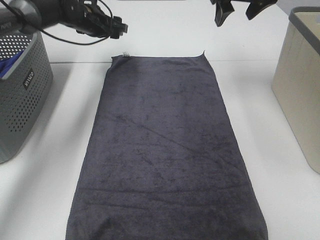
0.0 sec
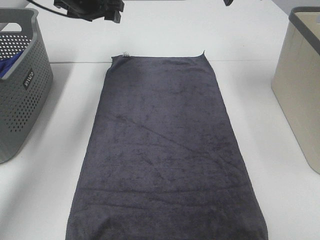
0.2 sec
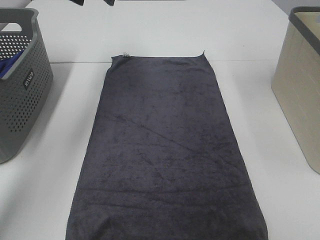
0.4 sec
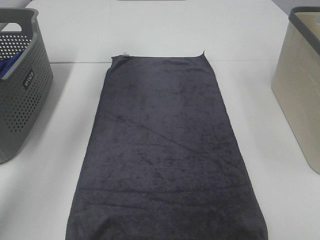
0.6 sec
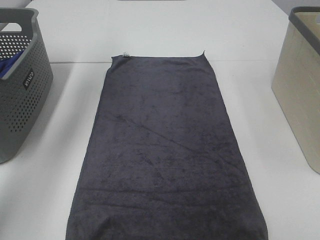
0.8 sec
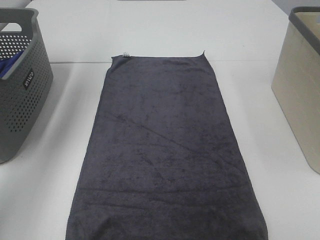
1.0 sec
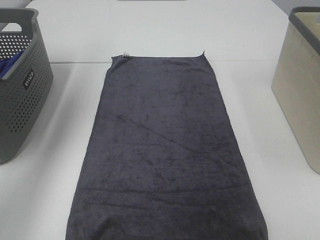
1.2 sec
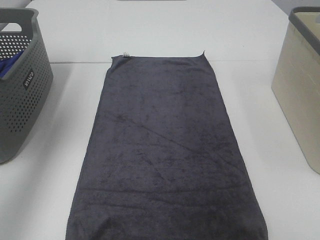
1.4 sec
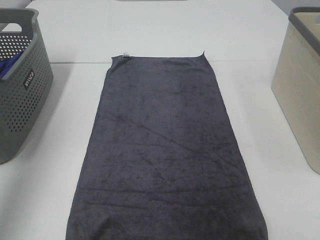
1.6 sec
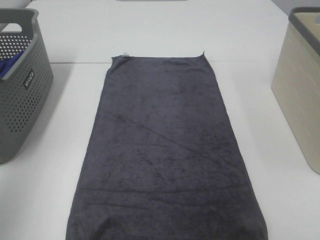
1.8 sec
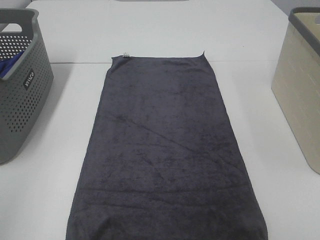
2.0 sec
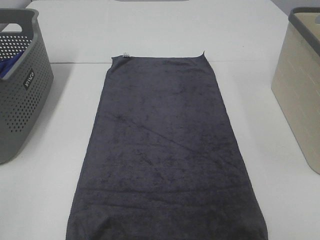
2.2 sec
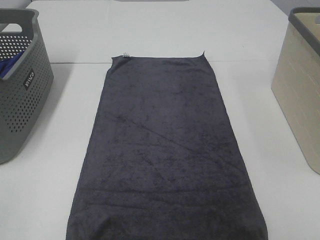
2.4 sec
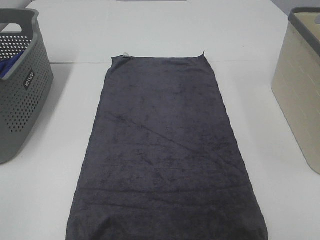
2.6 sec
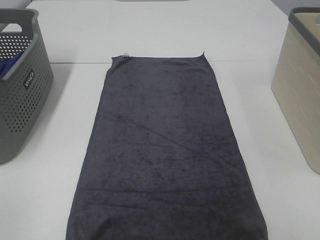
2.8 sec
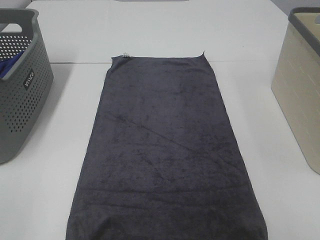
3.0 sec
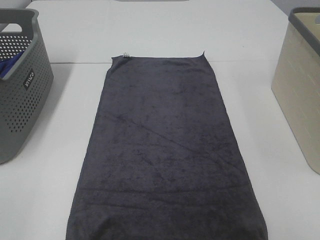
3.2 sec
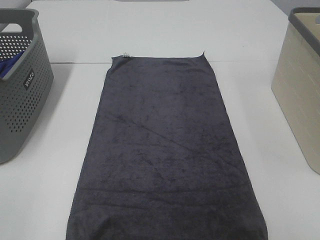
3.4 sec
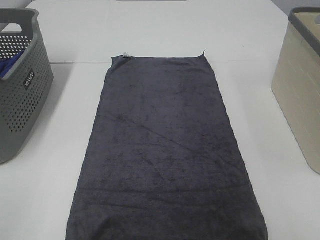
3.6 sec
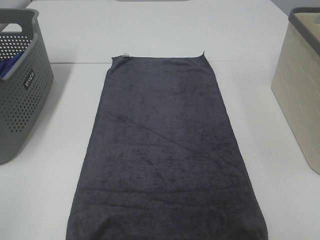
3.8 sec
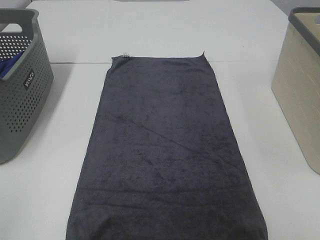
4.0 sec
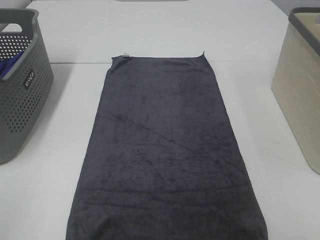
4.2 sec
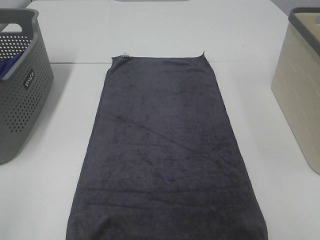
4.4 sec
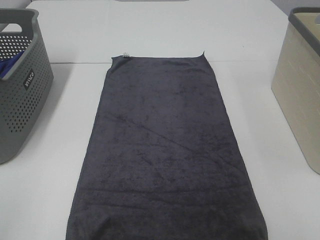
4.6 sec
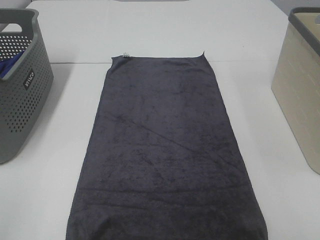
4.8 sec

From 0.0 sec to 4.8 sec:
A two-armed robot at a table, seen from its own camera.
Task of the whole recording: Remove the towel and place it.
From 0.0 sec to 1.6 sec: The right gripper moves backward, some 40 cm; the left gripper is displaced backward and upward by about 40 cm.
From 1.6 sec to 3.2 sec: The left gripper is displaced backward and downward by about 25 cm.

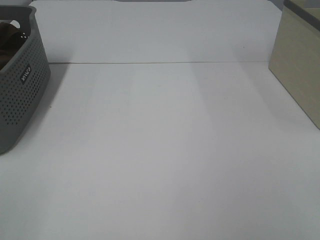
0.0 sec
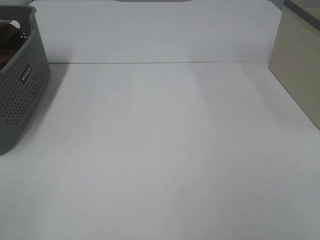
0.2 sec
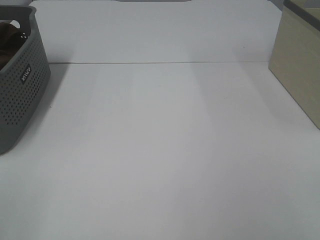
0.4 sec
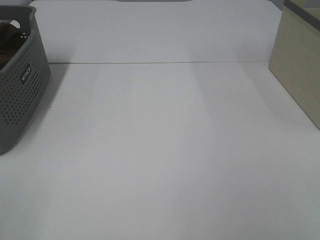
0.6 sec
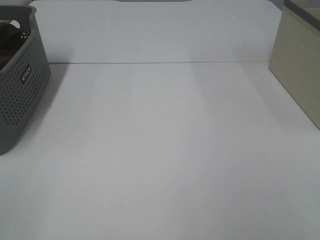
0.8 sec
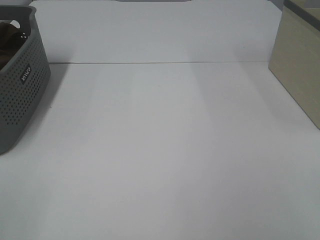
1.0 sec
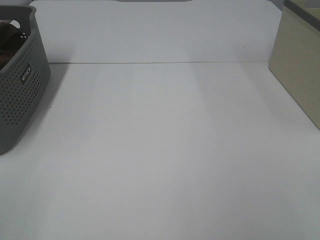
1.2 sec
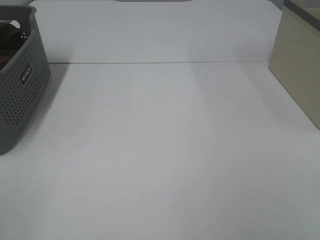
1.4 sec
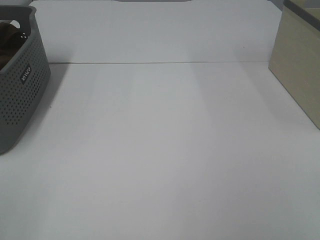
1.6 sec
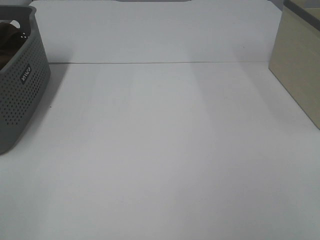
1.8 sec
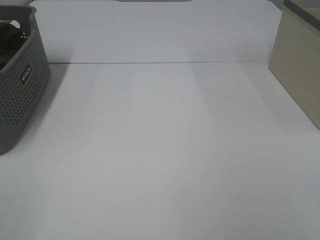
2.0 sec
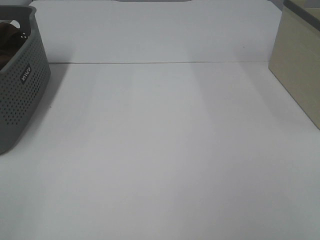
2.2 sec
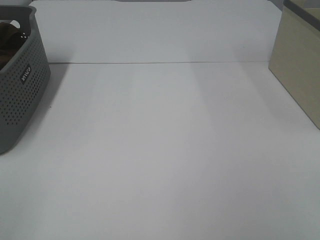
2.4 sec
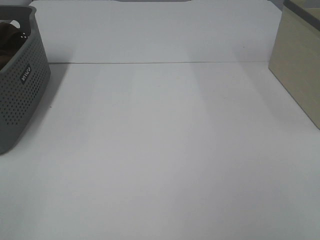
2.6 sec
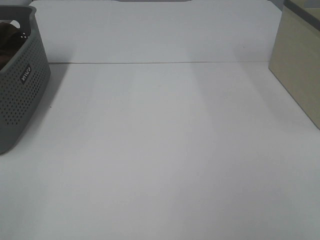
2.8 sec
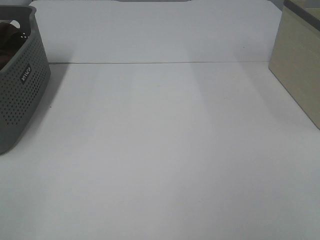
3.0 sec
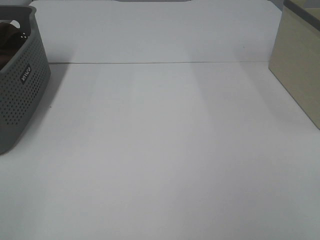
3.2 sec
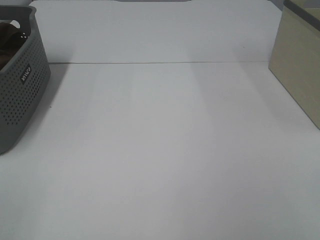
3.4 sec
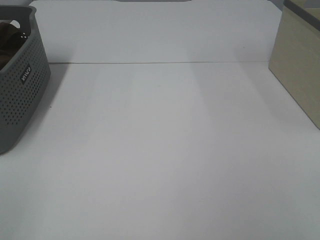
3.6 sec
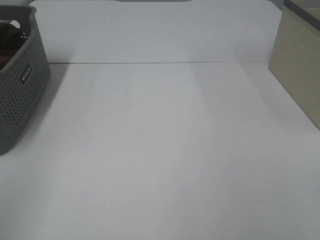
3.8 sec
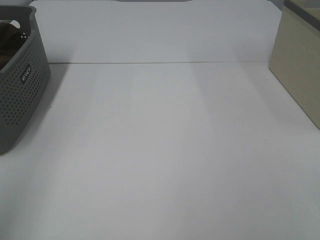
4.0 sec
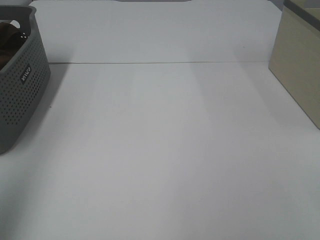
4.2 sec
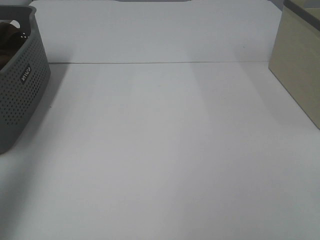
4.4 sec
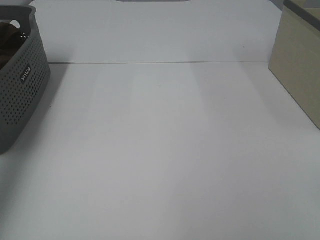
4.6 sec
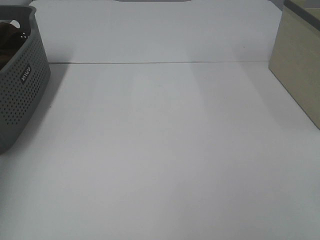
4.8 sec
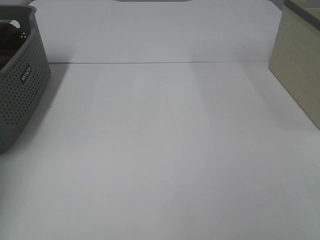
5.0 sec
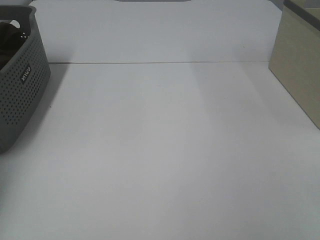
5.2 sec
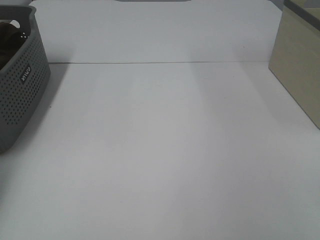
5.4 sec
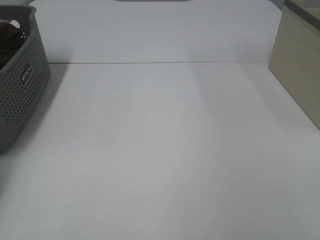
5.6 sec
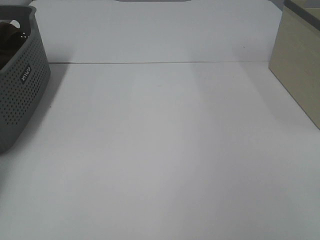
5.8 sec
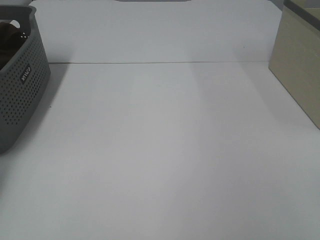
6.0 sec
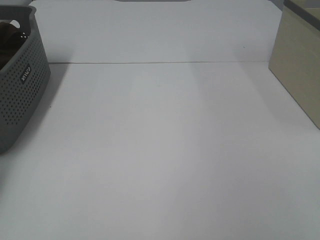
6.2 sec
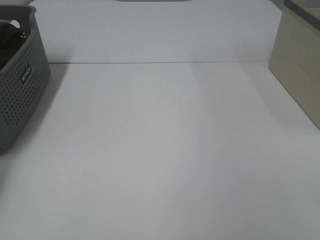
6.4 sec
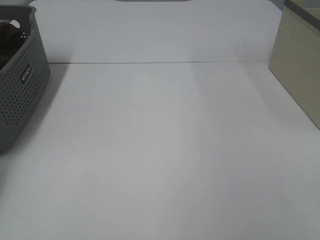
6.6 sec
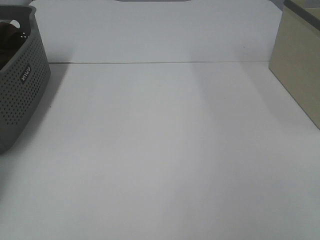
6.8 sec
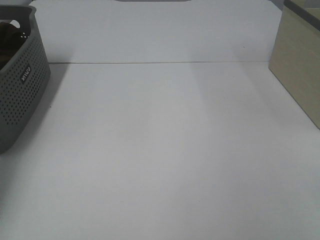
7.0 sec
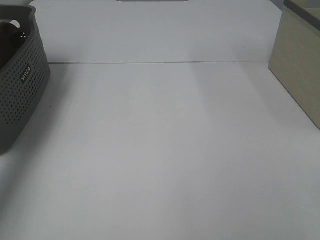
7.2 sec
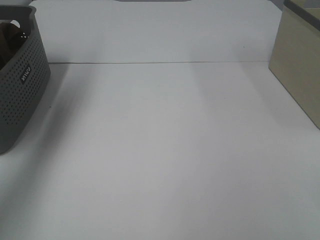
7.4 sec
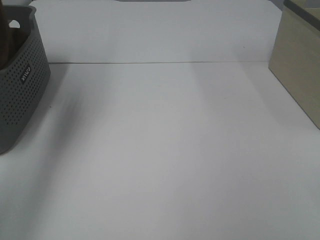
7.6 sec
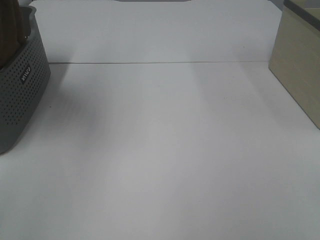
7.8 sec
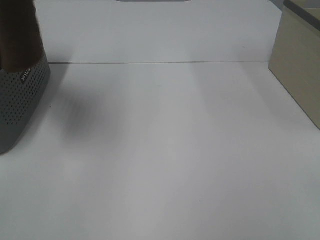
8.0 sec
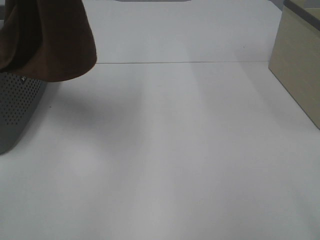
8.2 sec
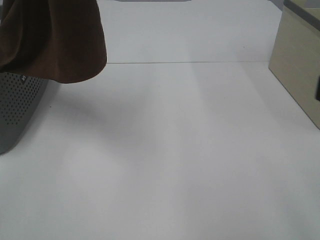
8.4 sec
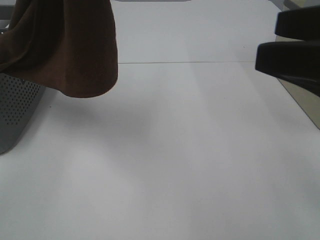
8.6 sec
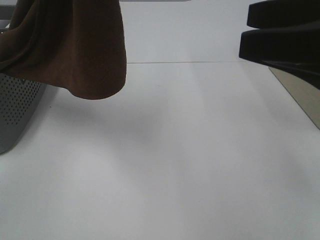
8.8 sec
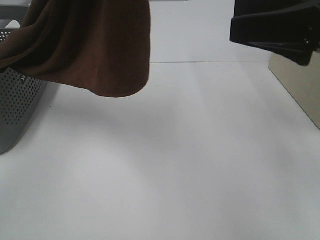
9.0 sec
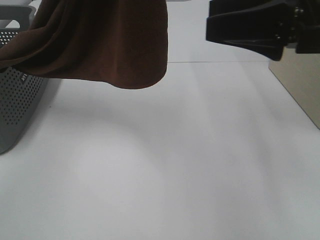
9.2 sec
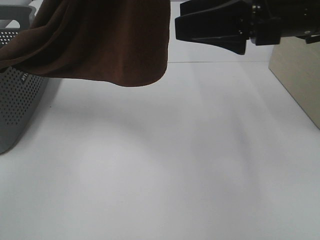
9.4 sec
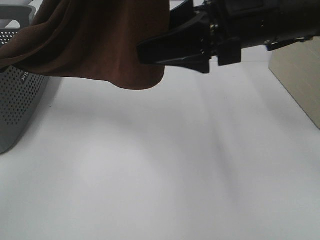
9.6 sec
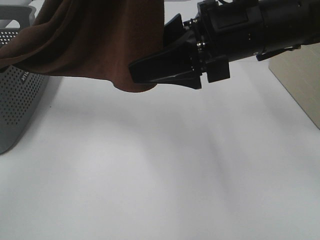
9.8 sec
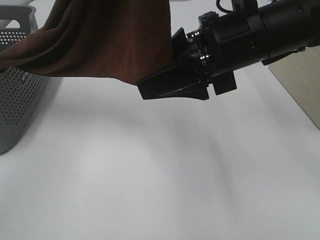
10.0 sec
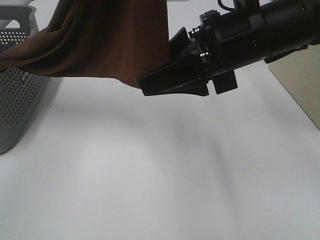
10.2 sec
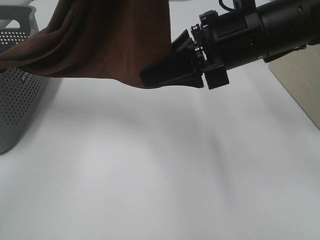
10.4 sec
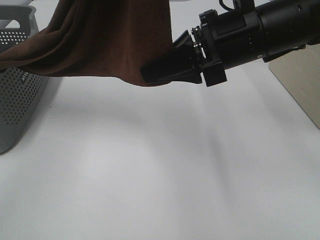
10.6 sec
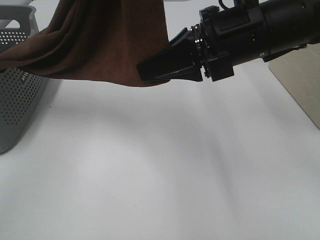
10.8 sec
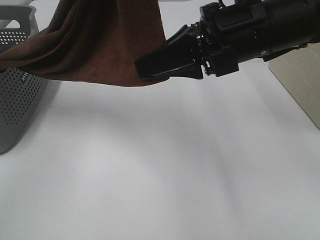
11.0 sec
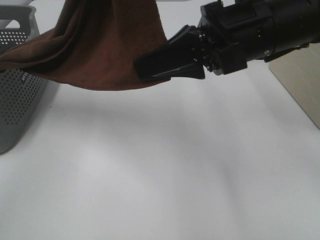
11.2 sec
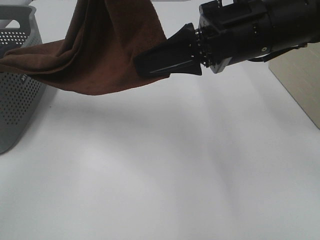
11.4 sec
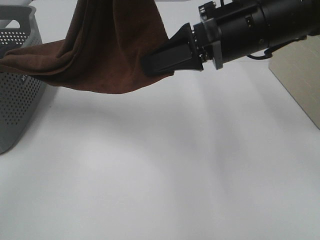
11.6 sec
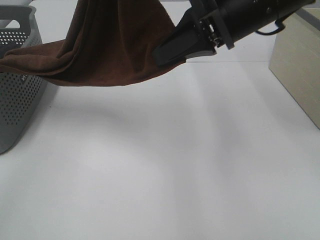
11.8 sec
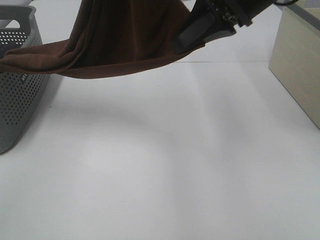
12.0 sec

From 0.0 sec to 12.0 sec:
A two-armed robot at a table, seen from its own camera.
Task of the whole recording: Remove the towel and place it.
From 0.0 sec to 3.0 sec: The two grippers keep their place.
From 3.0 sec to 4.4 sec: The left gripper is displaced forward and upward by roughly 25 cm.
From 4.4 sec to 6.0 sec: The left gripper moves forward, downward and to the left, some 35 cm, and closes up.
From 6.0 sec to 7.6 sec: The left gripper moves upward and to the right, approximately 30 cm, and closes its fingers.
From 7.6 sec to 9.0 sec: The left gripper heads to the right and backward, covering approximately 25 cm, while the right gripper is displaced forward by about 25 cm.
From 9.0 sec to 10.4 sec: The right gripper heads to the left, covering roughly 10 cm, and closes.
From 10.4 sec to 12.0 sec: The right gripper moves upward, approximately 5 cm, and closes up.

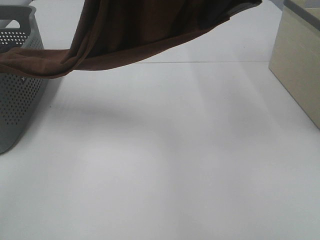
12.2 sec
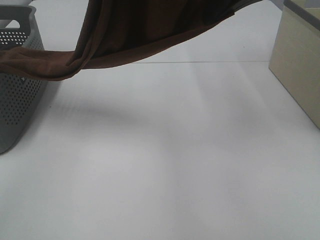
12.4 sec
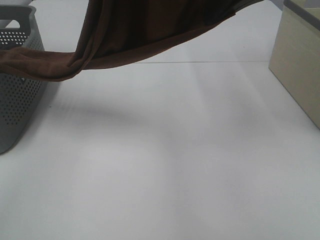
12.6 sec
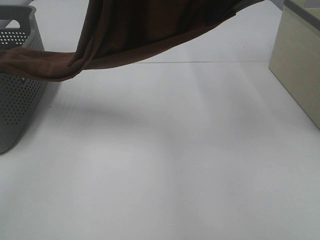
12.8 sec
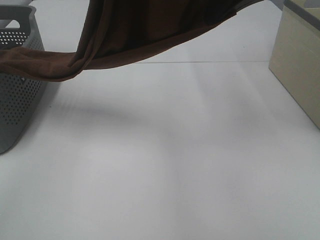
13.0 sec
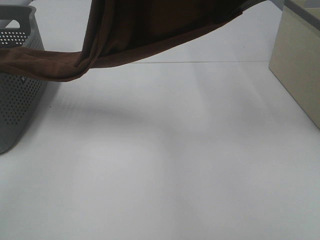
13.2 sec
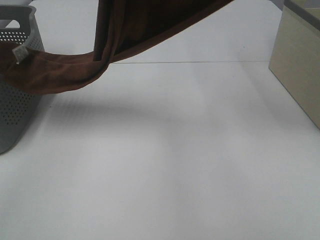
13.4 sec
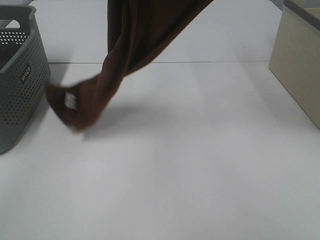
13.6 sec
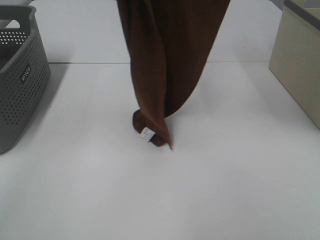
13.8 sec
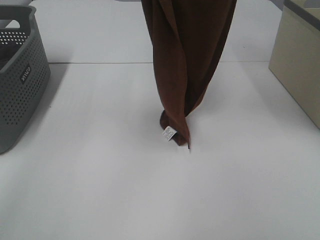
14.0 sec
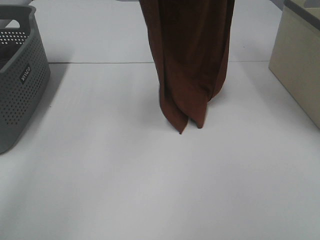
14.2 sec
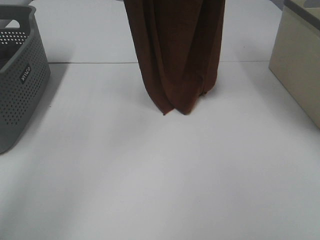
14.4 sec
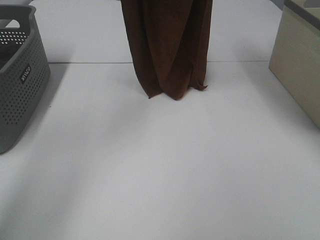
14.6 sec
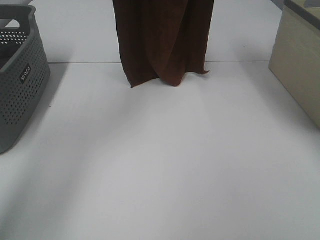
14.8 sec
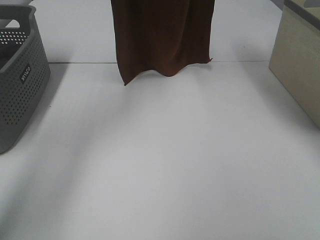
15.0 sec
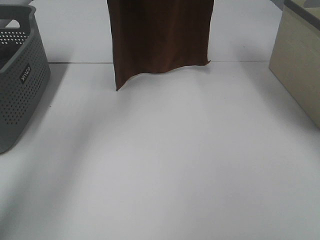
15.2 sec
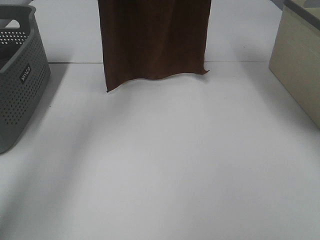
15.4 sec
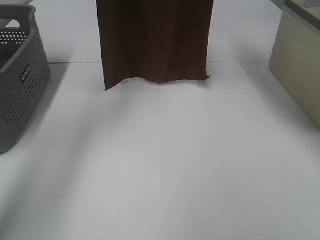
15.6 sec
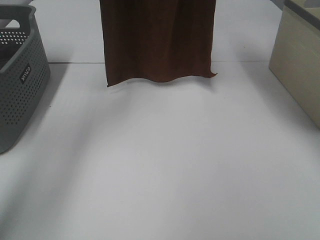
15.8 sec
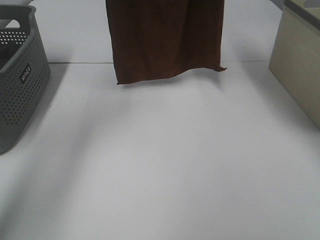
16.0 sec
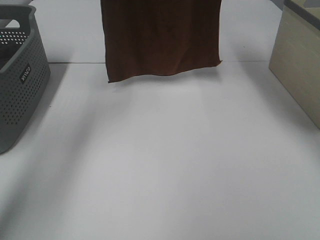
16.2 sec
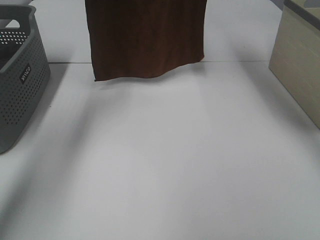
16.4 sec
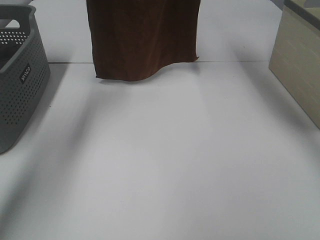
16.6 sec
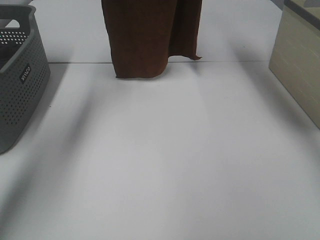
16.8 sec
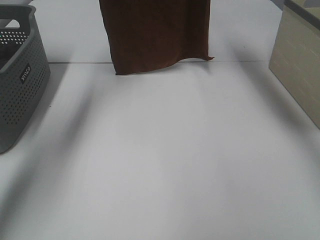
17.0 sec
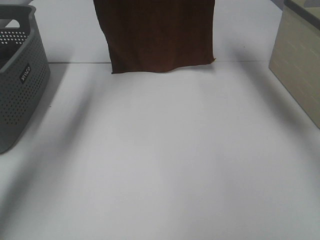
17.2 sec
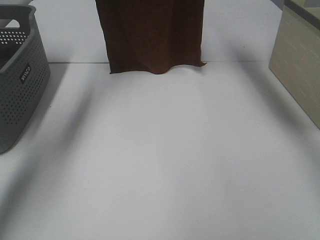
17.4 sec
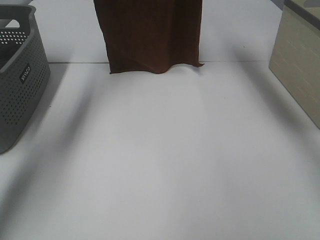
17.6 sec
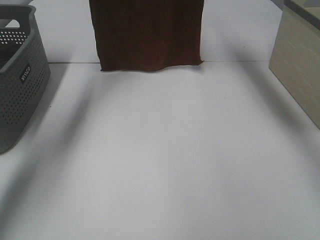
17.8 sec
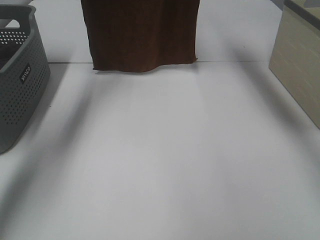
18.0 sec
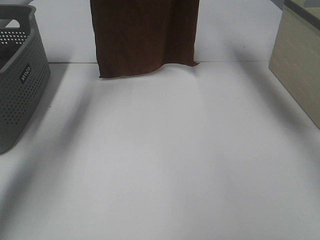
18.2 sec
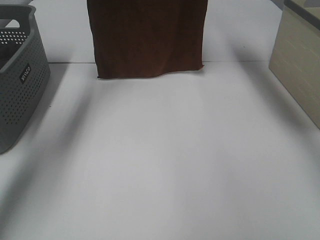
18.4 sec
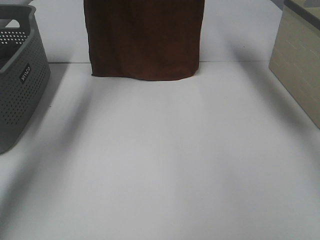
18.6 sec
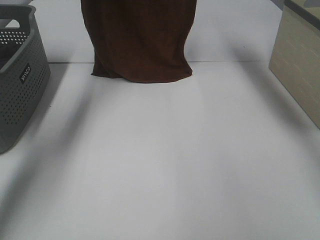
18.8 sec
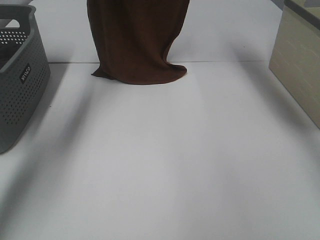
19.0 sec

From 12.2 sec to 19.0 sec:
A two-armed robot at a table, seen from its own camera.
Task of the whole recording: Remove the towel and place it.
Step, from 12.2 sec to 15.4 sec: Right hand: grab a corner of the brown towel and straighten it.
From 12.2 sec to 13.6 sec: The right gripper goes approximately 5 cm upward.
From 13.6 sec to 15.0 sec: The left gripper heads forward and downward, covering some 20 cm, while the right gripper heads forward, covering roughly 10 cm.
From 15.0 sec to 16.2 sec: The grippers move only a little.
From 16.2 sec to 17.6 sec: The right gripper travels forward by about 5 cm. The left gripper changes place by some 5 cm.
From 17.6 sec to 19.0 sec: The right gripper moves about 5 cm.
